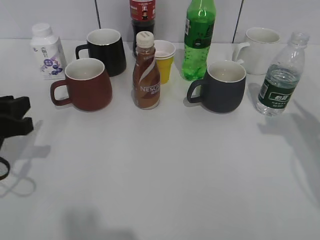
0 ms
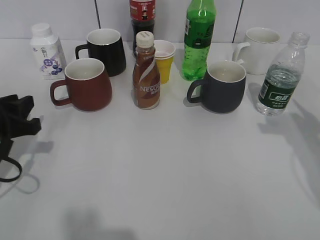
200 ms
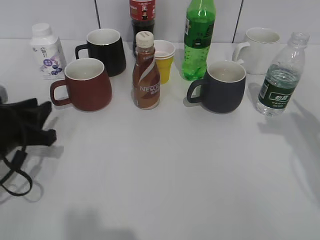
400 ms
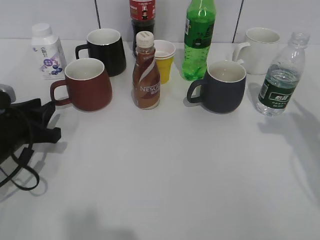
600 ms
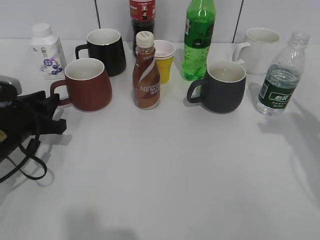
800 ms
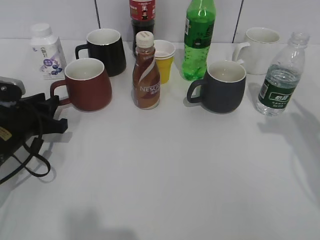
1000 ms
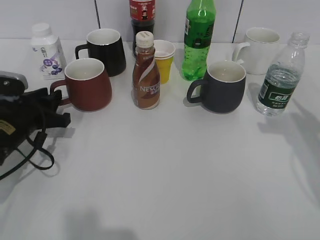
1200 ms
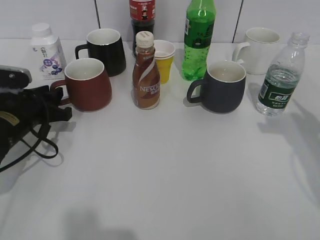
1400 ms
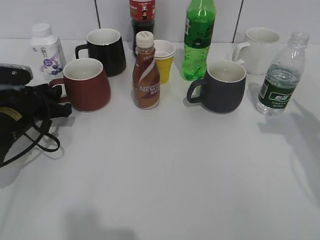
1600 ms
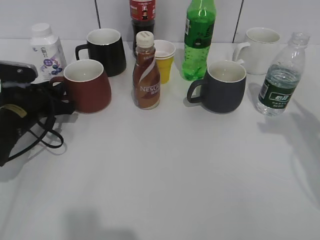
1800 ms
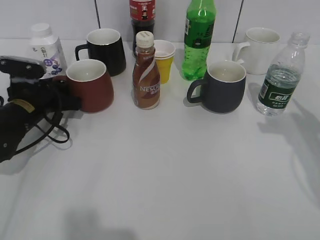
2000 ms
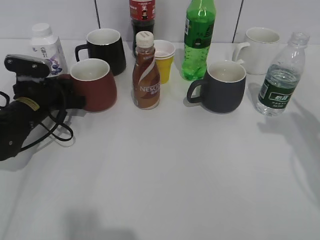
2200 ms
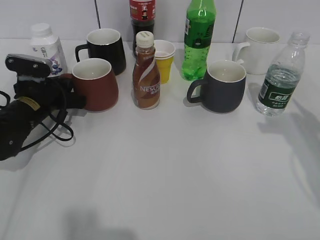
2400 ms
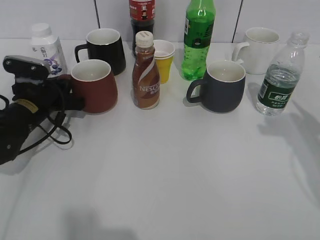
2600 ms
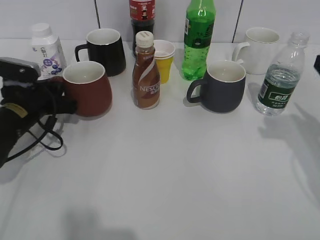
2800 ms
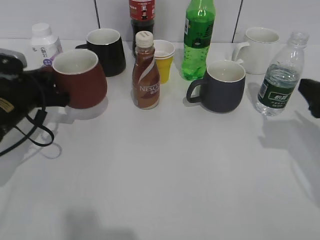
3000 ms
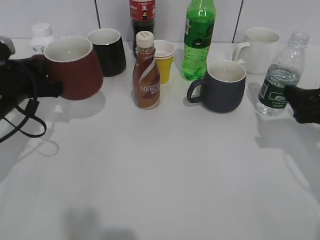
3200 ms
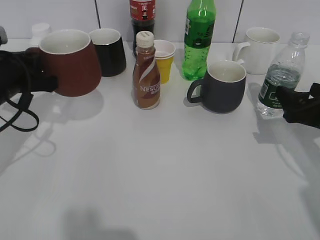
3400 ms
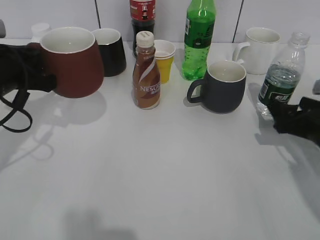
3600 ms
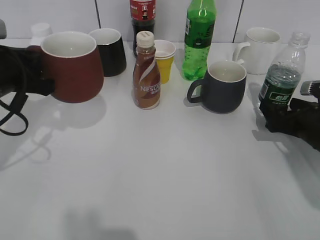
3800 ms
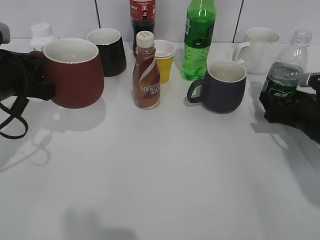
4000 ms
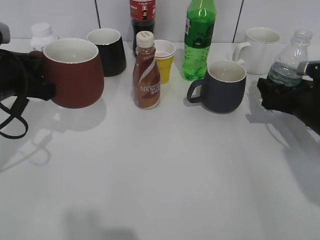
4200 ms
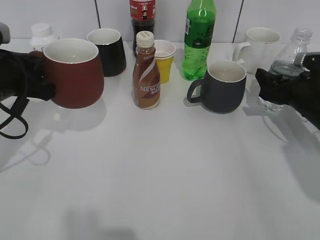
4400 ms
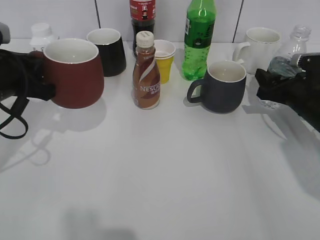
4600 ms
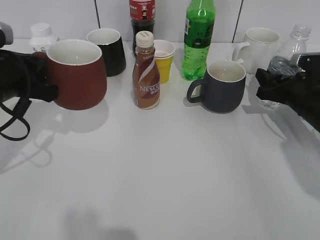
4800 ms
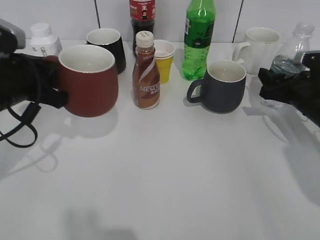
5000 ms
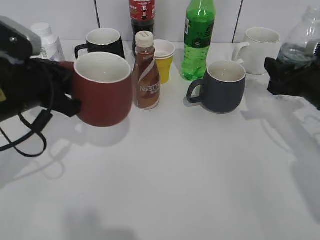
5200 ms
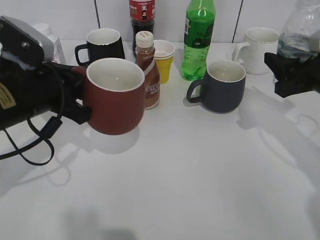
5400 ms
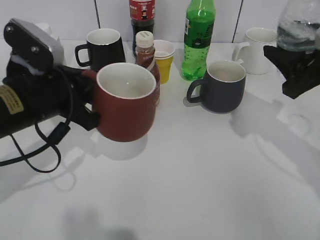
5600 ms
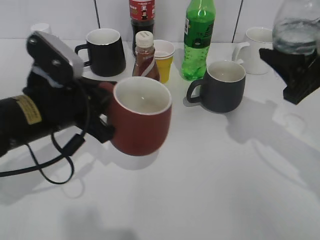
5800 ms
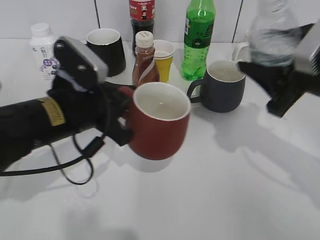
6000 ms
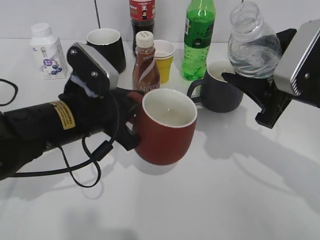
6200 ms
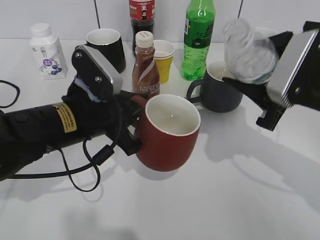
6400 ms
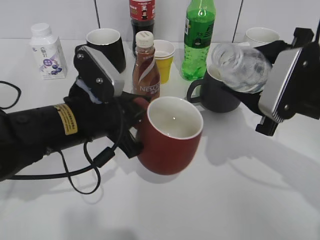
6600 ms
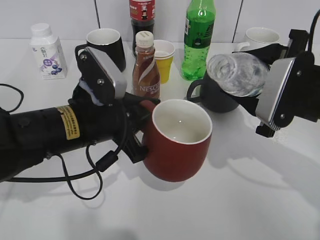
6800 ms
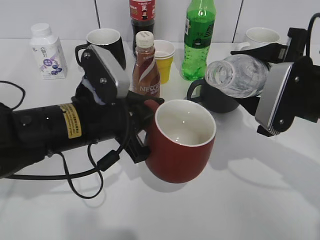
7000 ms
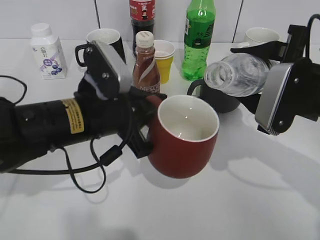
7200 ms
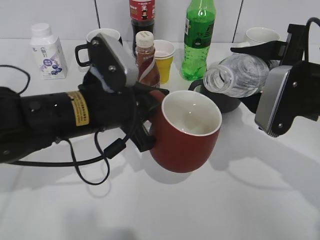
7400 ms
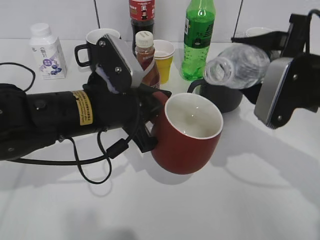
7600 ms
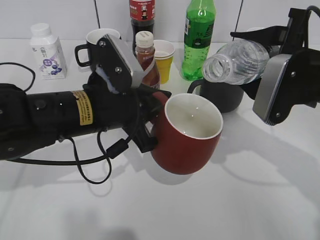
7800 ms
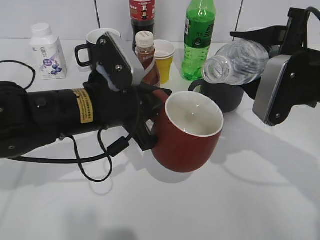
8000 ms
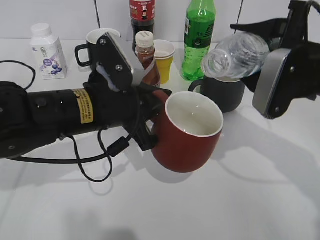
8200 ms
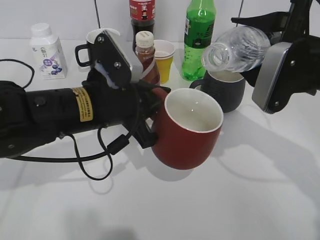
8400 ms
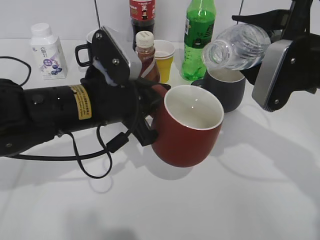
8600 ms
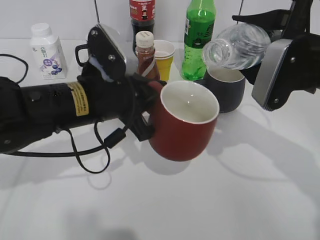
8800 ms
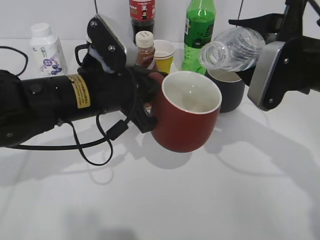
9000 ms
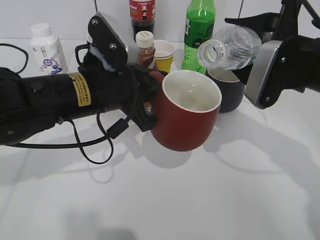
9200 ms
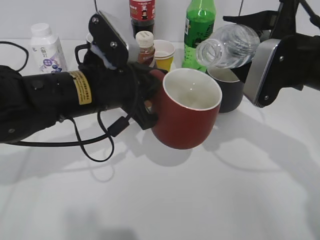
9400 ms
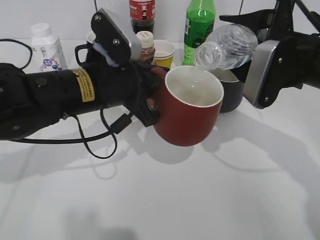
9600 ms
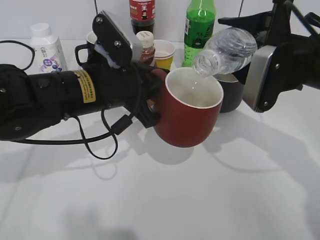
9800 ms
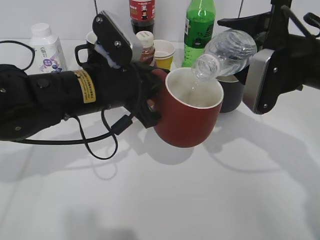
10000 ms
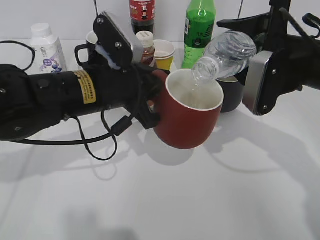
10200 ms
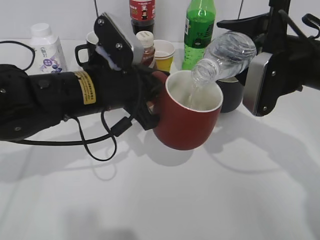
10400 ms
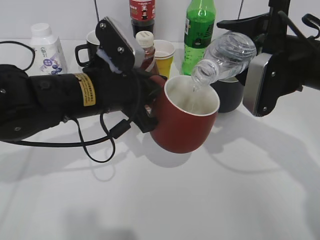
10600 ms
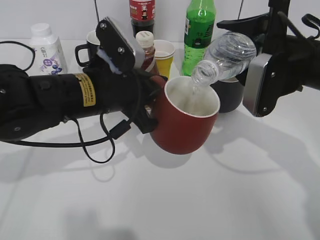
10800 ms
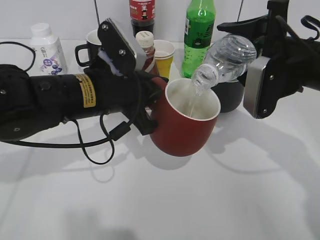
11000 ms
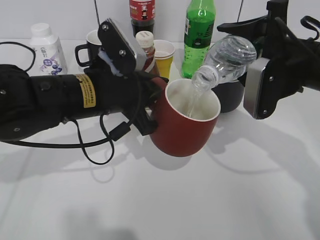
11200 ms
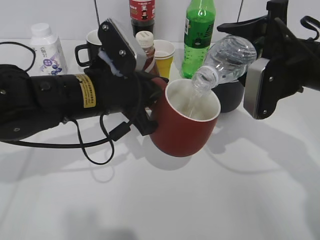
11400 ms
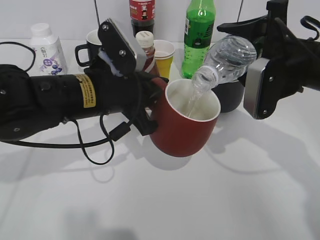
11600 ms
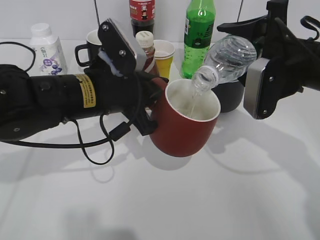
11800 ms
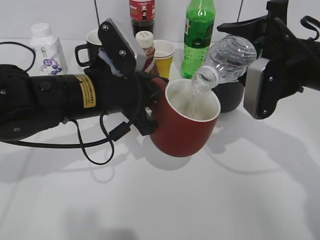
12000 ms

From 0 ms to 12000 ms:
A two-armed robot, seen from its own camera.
Step, from 0 ms to 2400 ms: Grasp the red cup with left gripper.
Step, from 2800 ms to 3200 ms: Lift the red cup with left gripper.
Step, from 3400 ms to 4400 ms: Grasp the bottle with water with right gripper.
From 0 ms to 1600 ms: The left gripper travels forward and downward by roughly 10 cm.
From 1600 ms to 3000 ms: The right gripper opens up; the left gripper closes up.
From 3000 ms to 4400 ms: The right gripper is displaced forward and downward by roughly 15 cm, while the left gripper goes some 5 cm upward.
From 4400 ms to 6000 ms: The right gripper shifts some 15 cm upward, backward and to the left, and closes. Meanwhile the left gripper travels to the right by about 10 cm.
From 9000 ms to 10400 ms: The grippers move only a little.
From 10400 ms to 12000 ms: The two grippers keep their place.

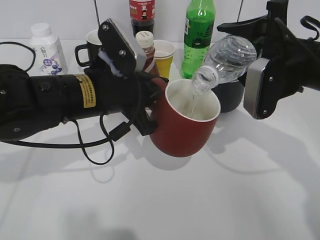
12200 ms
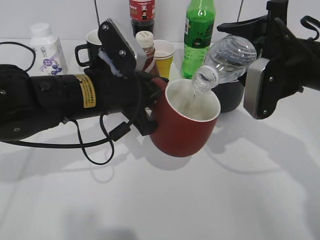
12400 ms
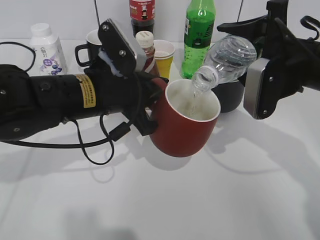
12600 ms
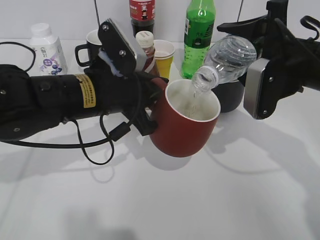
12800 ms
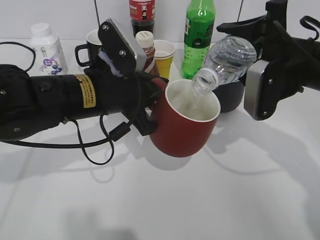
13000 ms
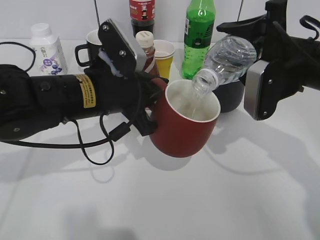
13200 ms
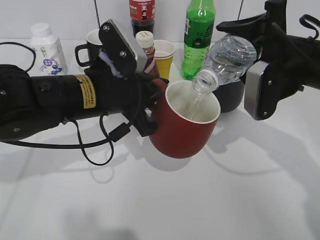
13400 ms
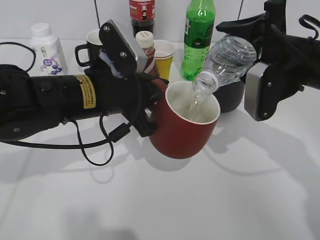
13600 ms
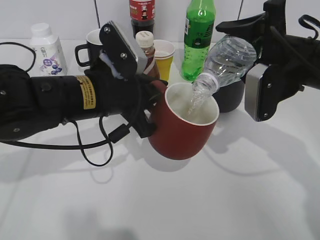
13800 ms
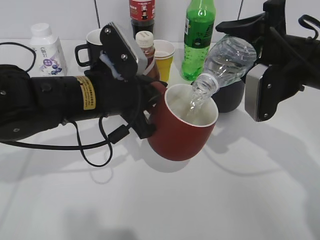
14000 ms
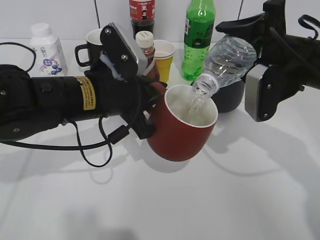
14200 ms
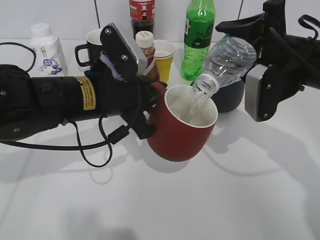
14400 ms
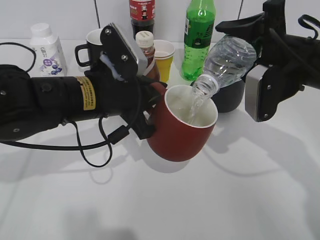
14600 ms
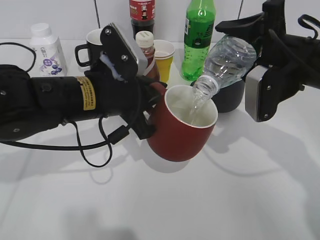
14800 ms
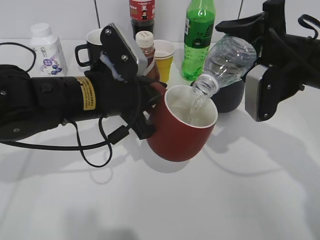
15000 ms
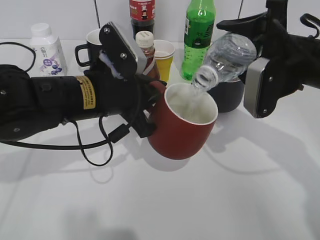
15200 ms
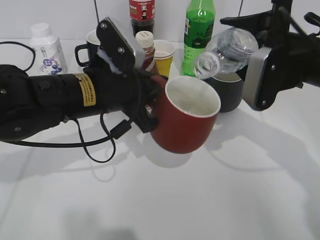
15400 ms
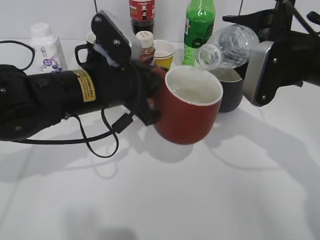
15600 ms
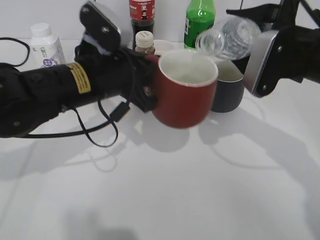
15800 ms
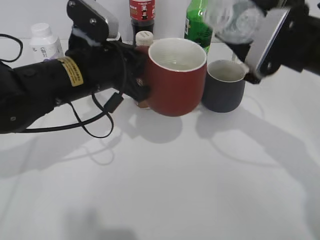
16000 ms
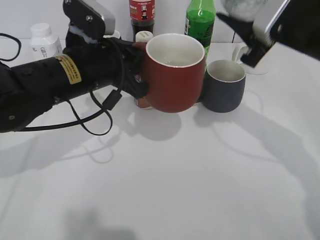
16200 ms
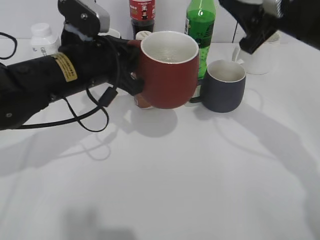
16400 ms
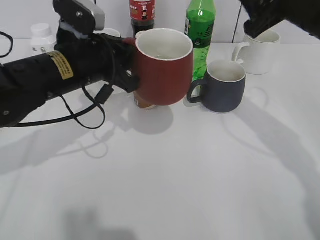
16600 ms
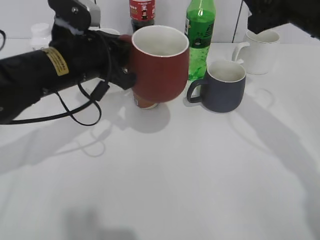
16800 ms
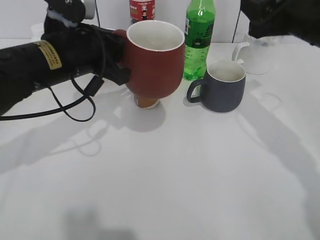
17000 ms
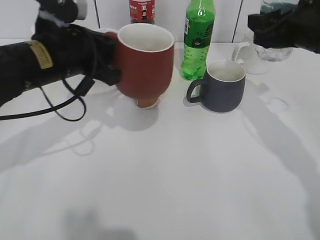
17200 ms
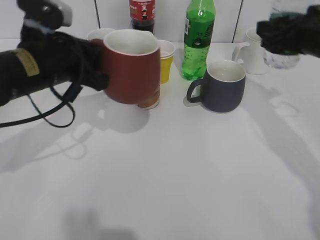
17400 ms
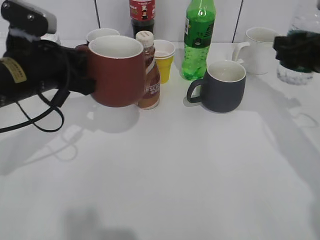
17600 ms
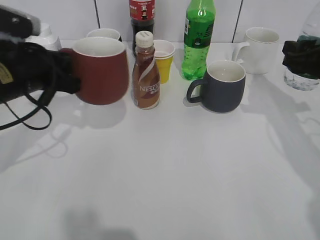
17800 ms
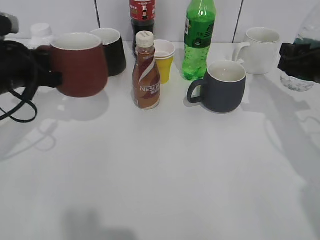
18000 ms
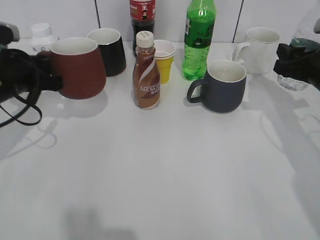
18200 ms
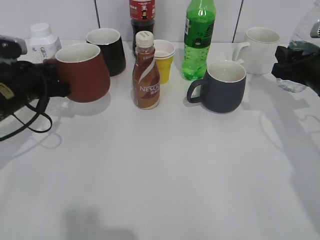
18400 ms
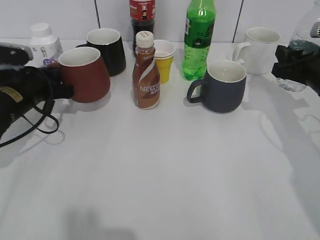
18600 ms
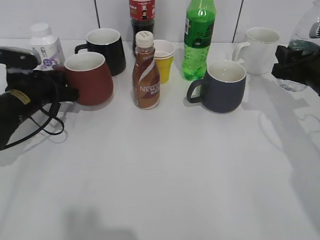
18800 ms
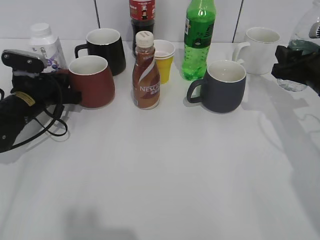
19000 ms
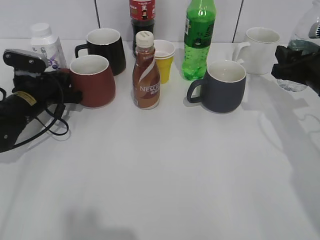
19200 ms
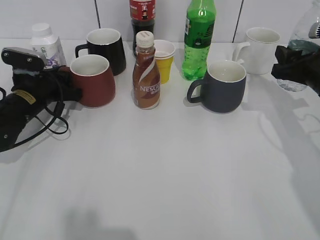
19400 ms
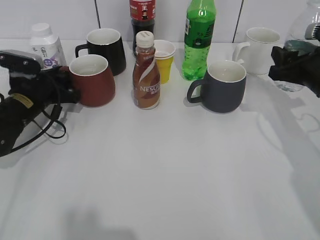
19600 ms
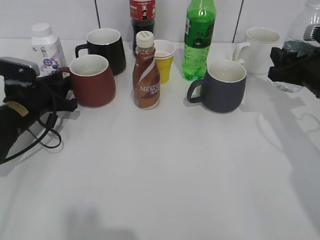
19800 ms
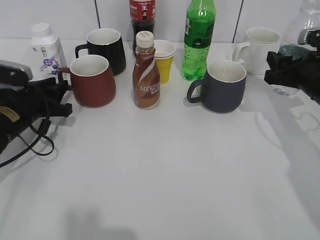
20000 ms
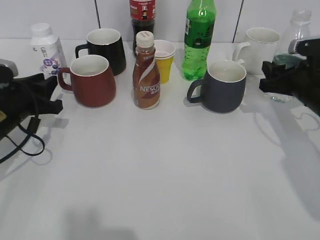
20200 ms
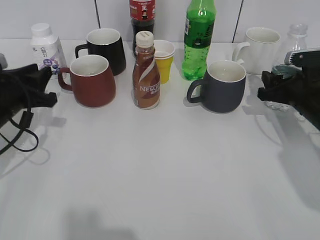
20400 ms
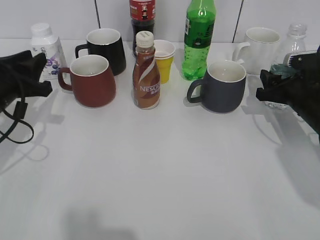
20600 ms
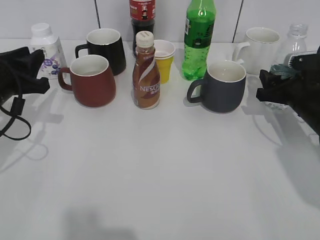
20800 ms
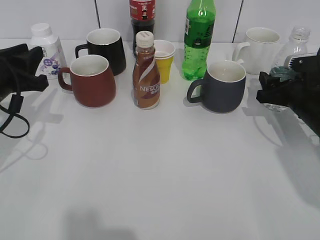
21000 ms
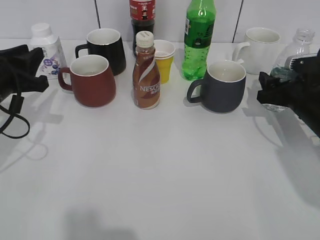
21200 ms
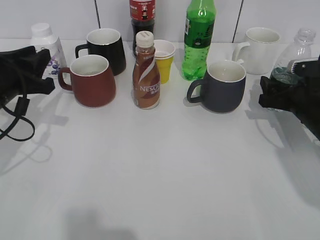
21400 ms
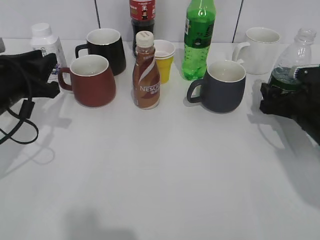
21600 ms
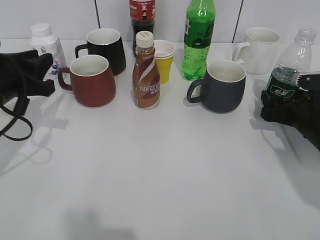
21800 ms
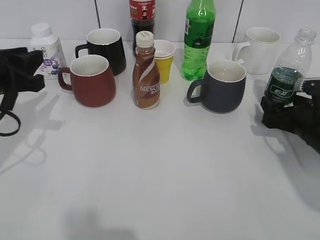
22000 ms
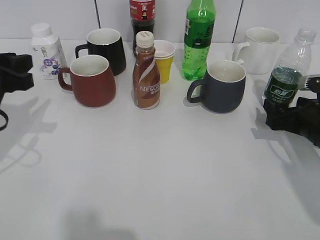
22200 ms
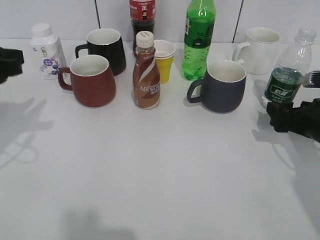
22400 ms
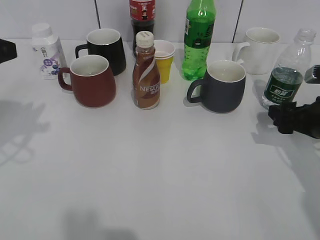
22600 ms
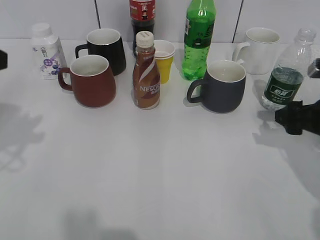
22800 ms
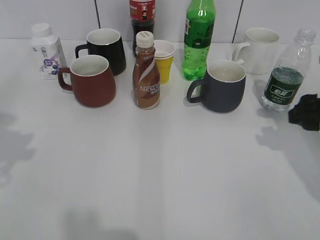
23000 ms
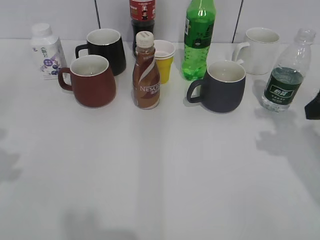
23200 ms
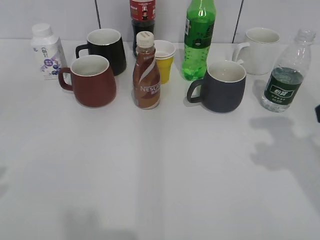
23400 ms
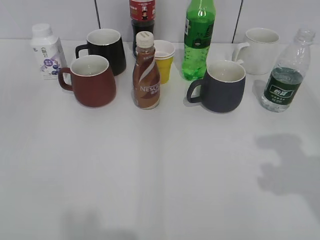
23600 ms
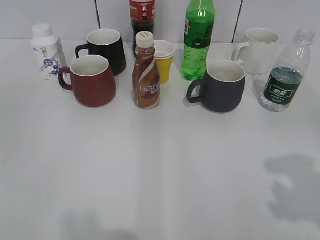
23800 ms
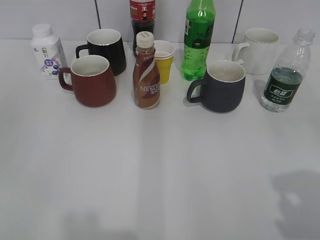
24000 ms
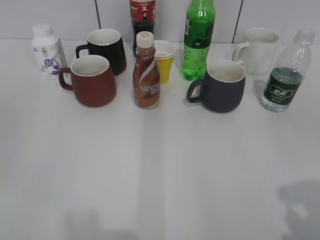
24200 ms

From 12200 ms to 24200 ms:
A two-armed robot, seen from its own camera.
Step, from 12200 ms to 15400 ms: Pour the water from bottle to cup with right gripper.
Step, from 15800 ms to 19400 ms: Place the red cup on the table with left gripper.
Step, from 19600 ms to 22000 ms: Place the water bottle on the table with right gripper.
From 12200 ms to 15200 ms: The grippers make only small movements.
From 15200 ms to 16600 ms: The right gripper heads upward, covering about 5 cm.
From 16600 ms to 18200 ms: The right gripper travels downward and to the right by some 10 cm, while the left gripper is displaced to the left by about 15 cm.
From 18200 ms to 19800 ms: The left gripper travels downward by roughly 10 cm, and opens its fingers.
From 19800 ms to 21200 ms: The right gripper goes approximately 5 cm downward, and opens its fingers. The left gripper is displaced upward and backward by some 10 cm.
From 21200 ms to 22600 ms: The right gripper heads backward, covering roughly 5 cm; the left gripper travels upward and backward by about 10 cm.
From 22600 ms to 24200 ms: The left gripper travels backward by about 20 cm; the right gripper is displaced backward and upward by some 30 cm.
